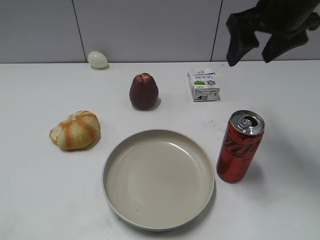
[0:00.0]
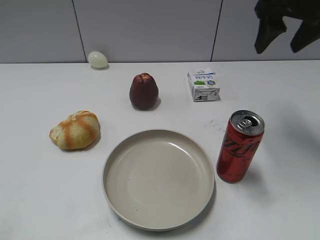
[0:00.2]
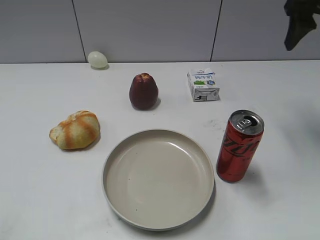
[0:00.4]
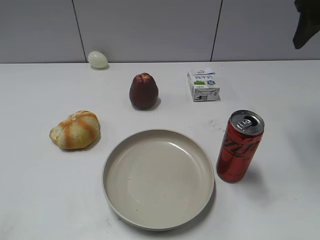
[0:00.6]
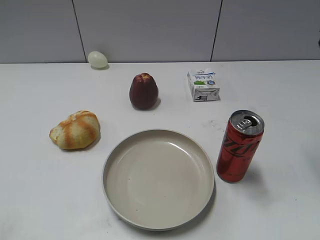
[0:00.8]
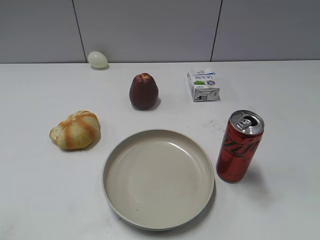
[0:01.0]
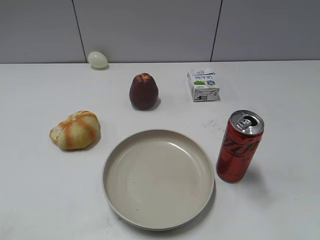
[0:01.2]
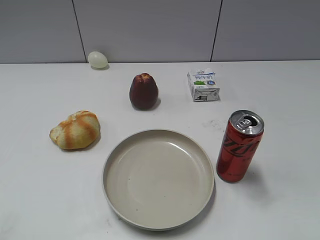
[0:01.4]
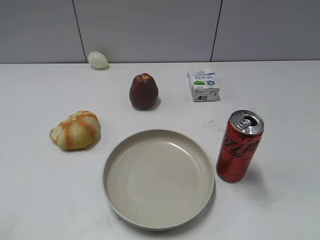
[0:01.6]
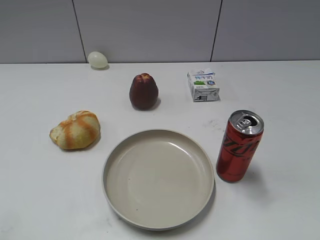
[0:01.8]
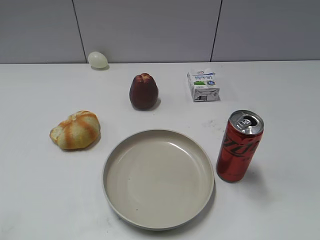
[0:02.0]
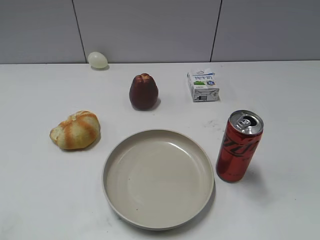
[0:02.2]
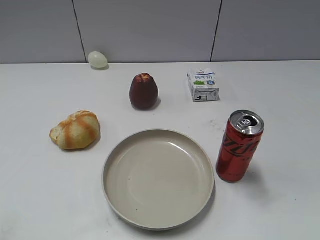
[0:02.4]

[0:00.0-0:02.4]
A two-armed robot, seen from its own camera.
0:00.0 to 0:01.2: The right gripper travels backward and to the right by roughly 25 cm.
